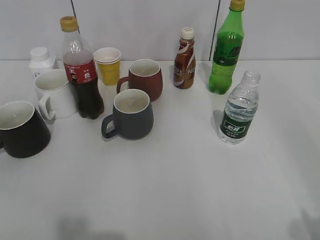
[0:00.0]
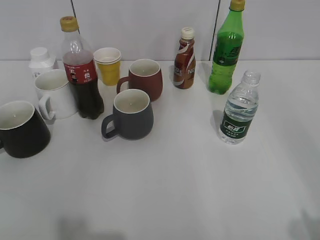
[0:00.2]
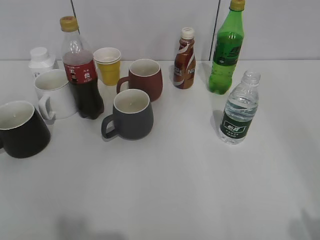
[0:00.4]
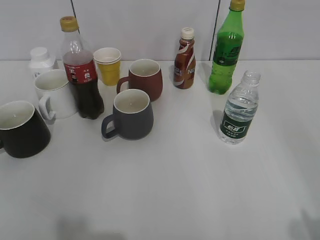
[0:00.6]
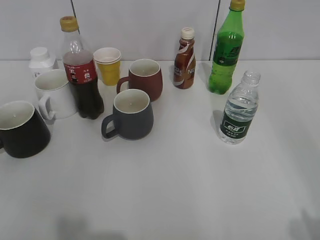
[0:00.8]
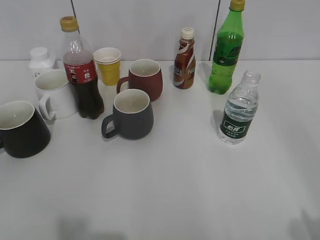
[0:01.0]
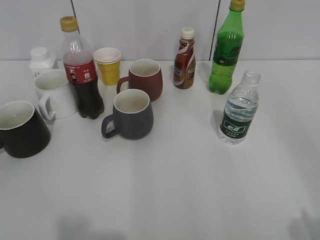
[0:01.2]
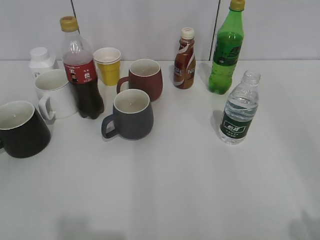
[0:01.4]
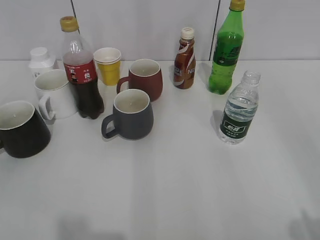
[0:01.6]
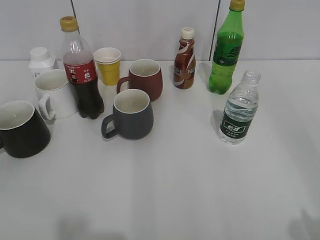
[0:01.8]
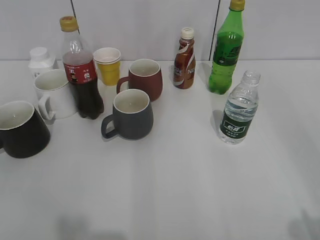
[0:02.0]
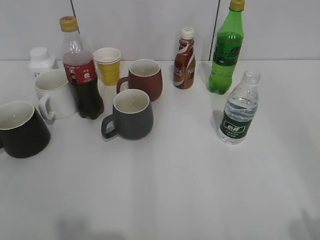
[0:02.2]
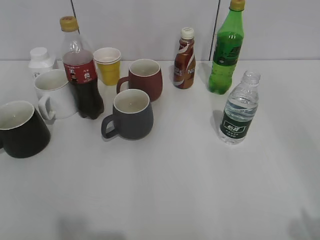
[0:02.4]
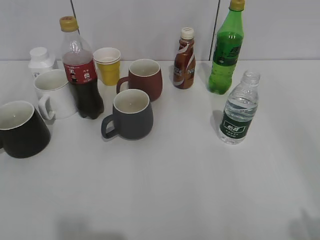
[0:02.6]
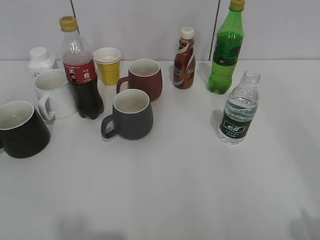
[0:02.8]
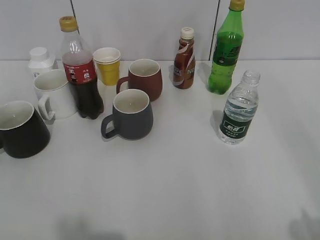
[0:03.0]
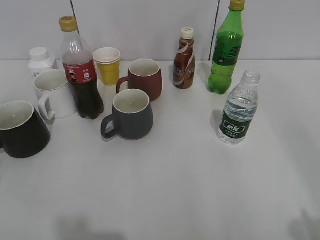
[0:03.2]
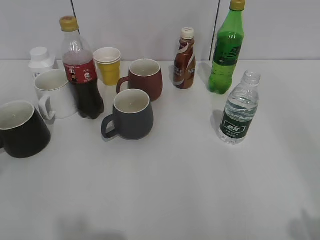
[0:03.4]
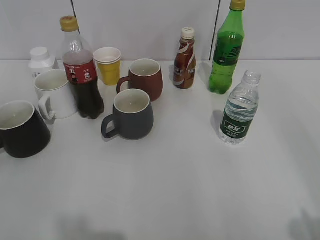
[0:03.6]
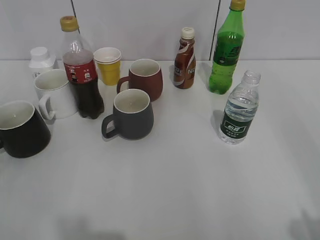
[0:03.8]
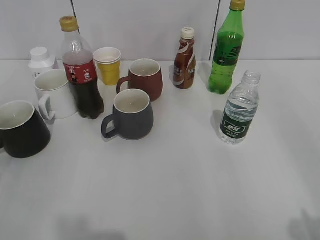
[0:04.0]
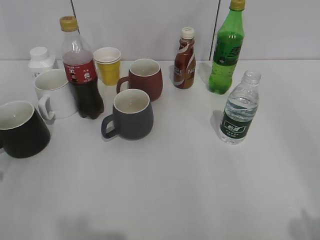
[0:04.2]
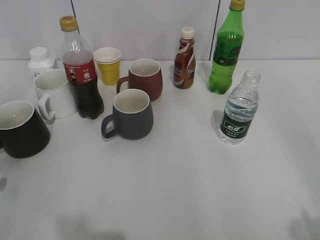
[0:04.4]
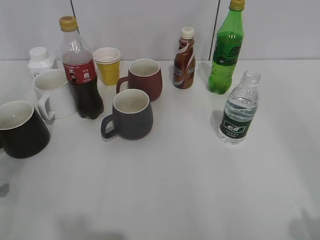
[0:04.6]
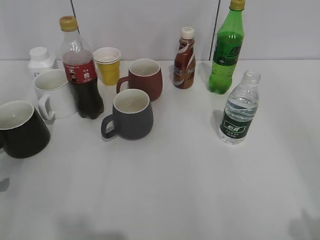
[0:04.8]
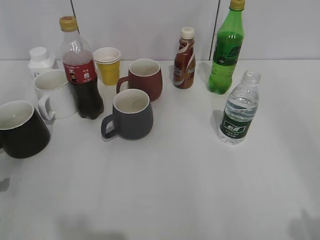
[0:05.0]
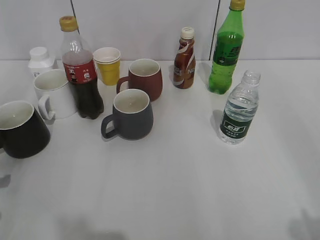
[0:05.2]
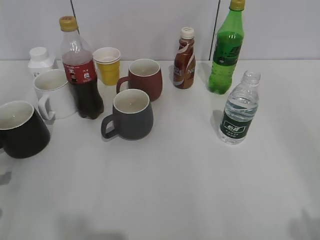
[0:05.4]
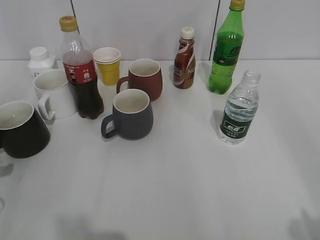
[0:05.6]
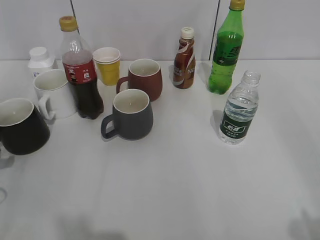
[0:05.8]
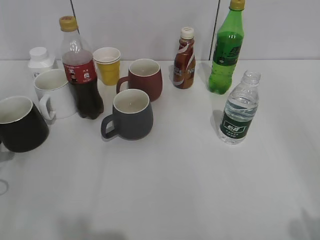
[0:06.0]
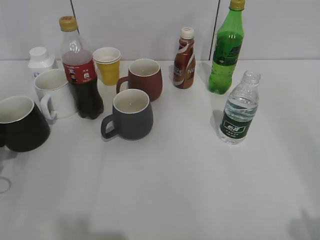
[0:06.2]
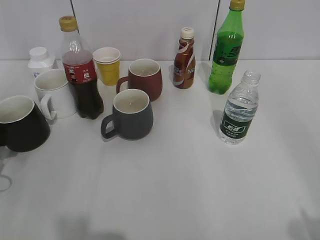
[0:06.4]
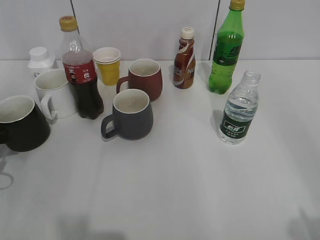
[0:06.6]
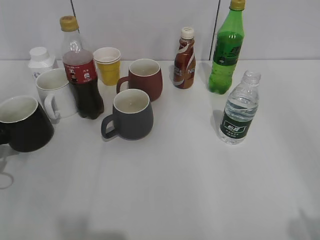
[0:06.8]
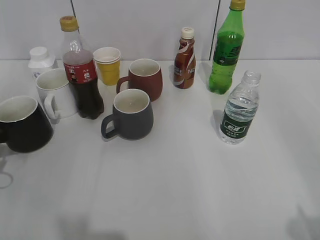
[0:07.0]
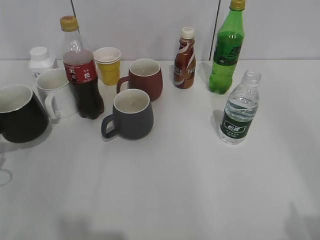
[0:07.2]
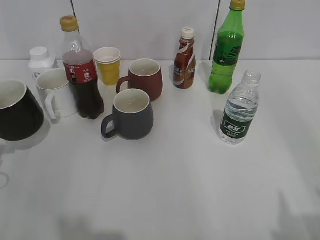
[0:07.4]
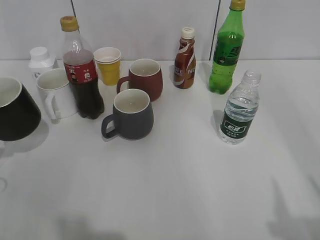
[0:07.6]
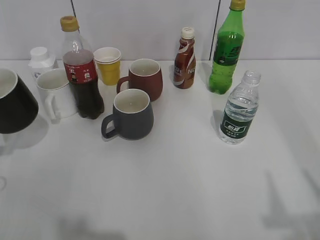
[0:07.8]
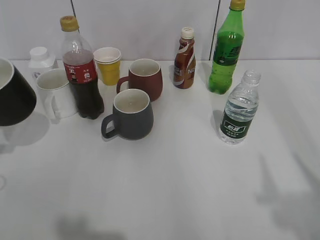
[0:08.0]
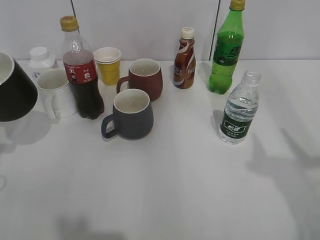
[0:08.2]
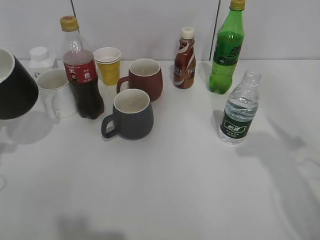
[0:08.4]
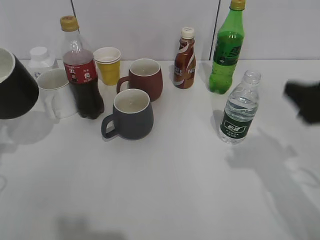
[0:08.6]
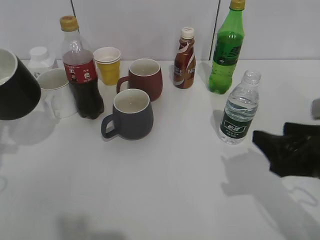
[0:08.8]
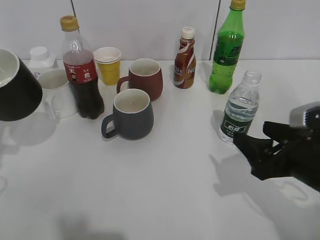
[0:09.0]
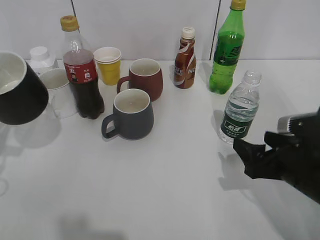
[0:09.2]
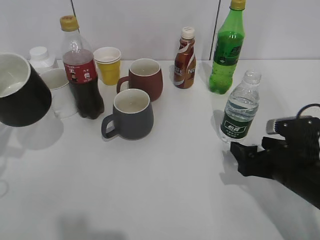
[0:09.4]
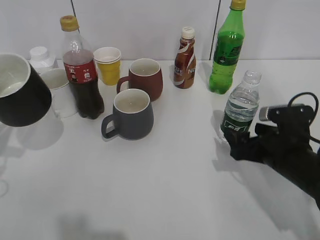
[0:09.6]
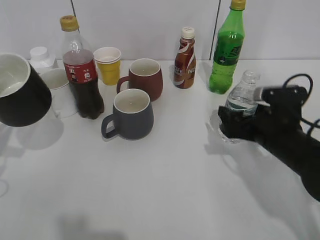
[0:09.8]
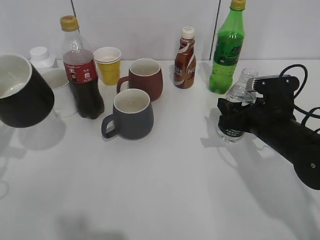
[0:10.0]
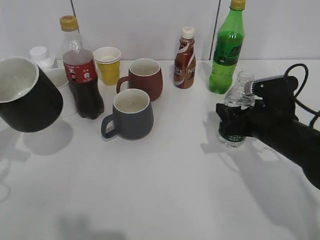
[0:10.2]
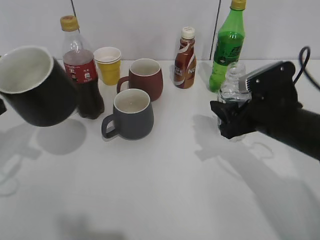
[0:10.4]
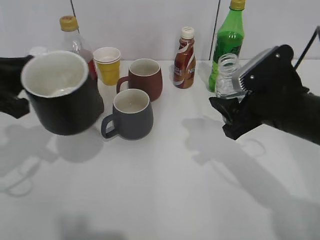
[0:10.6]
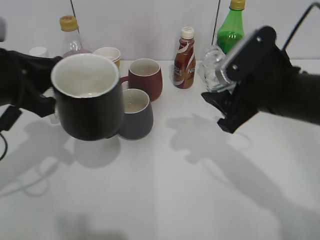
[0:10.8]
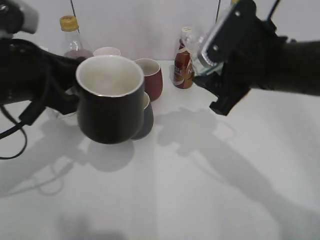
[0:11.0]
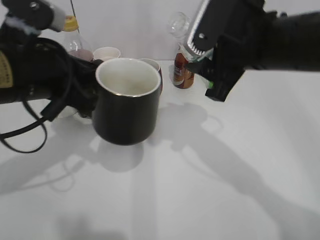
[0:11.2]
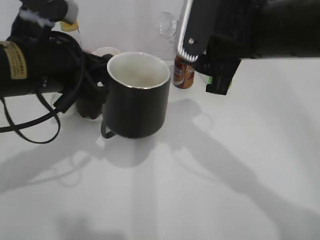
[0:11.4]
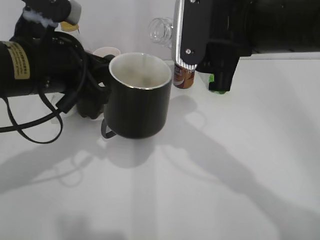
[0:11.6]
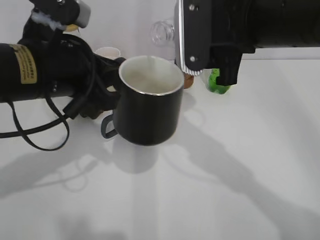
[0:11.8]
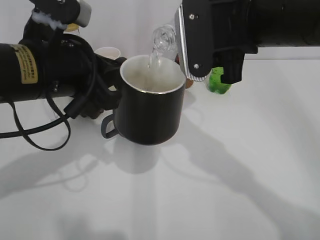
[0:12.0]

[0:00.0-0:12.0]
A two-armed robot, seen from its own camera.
Step, 0:07.0 to 0:08.4: Lift the black cup with left gripper.
Step, 0:08.6 to 0:09.8: Grasp the bottle with water with right gripper.
0:04.4 to 0:06.0: The left gripper is displaced forward by some 5 cm.
0:06.0 to 0:07.6: The left gripper closes.
0:07.6 to 0:09.0: The left gripper moves about 5 cm; the right gripper is displaced downward, forward and to the left by some 25 cm.
0:09.0 to 0:10.4: The right gripper heads forward, covering approximately 10 cm, and closes its fingers.
0:10.4 to 0:12.0: The left gripper moves to the right, roughly 15 cm. Meanwhile the right gripper moves upward and to the left, approximately 20 cm.

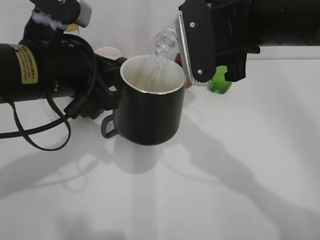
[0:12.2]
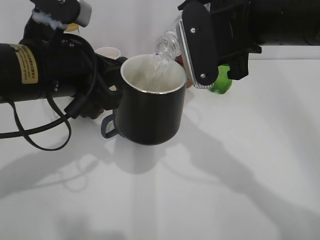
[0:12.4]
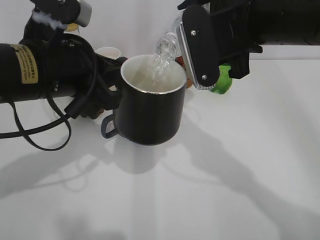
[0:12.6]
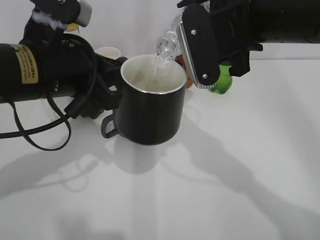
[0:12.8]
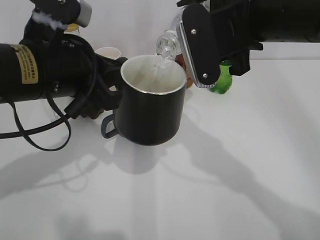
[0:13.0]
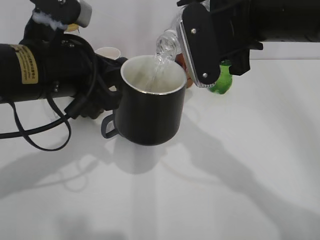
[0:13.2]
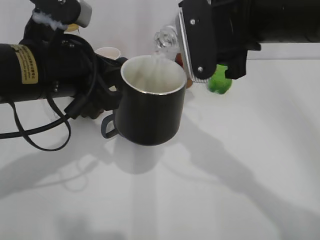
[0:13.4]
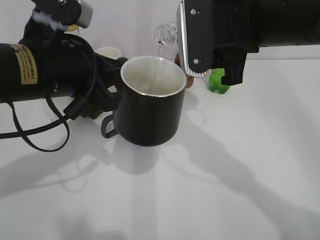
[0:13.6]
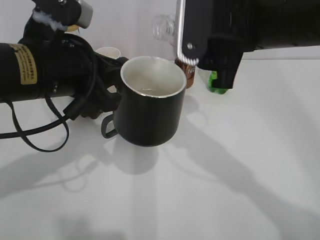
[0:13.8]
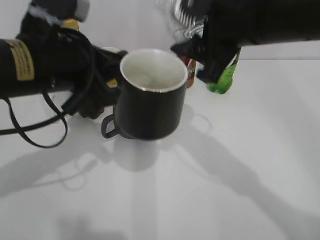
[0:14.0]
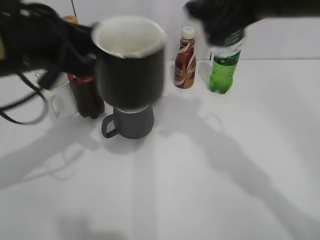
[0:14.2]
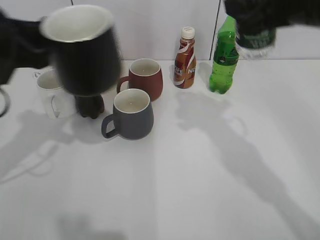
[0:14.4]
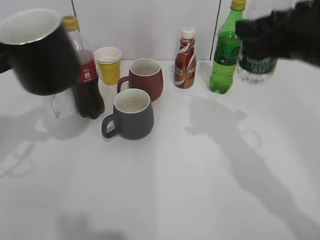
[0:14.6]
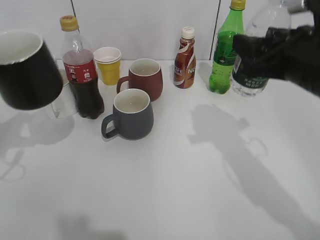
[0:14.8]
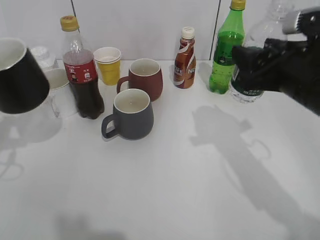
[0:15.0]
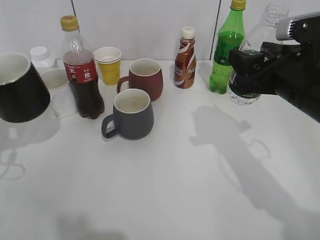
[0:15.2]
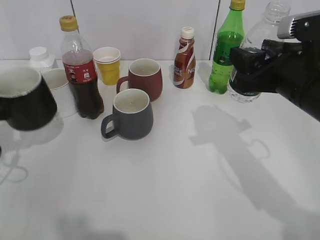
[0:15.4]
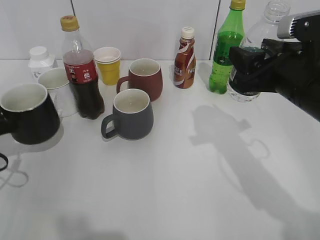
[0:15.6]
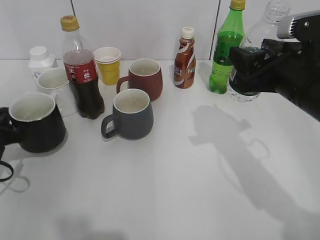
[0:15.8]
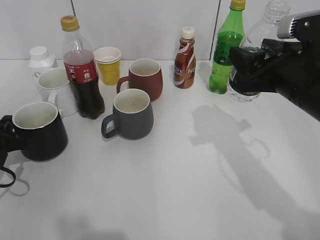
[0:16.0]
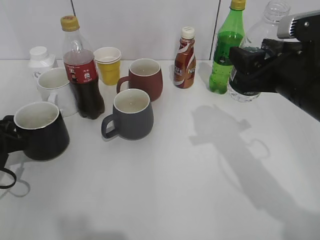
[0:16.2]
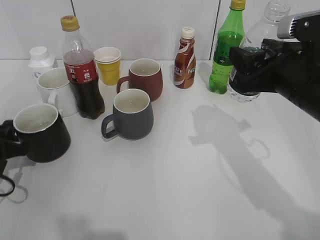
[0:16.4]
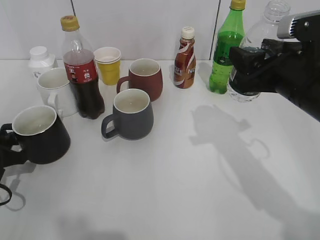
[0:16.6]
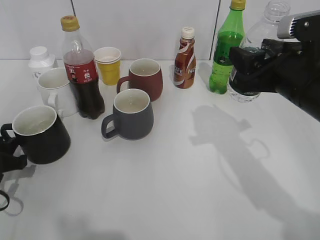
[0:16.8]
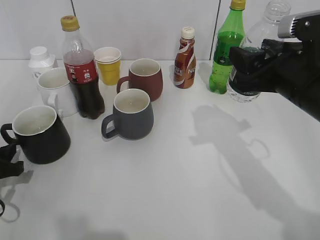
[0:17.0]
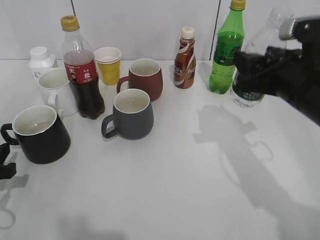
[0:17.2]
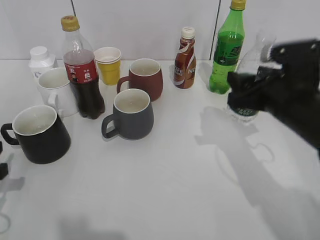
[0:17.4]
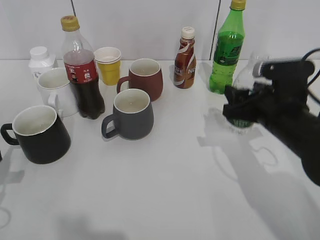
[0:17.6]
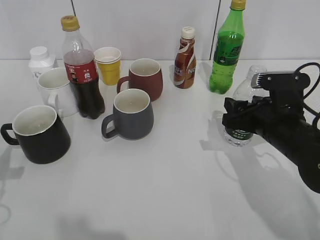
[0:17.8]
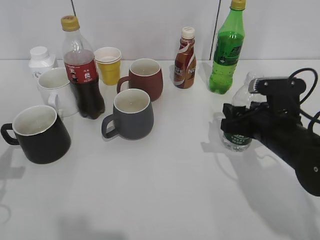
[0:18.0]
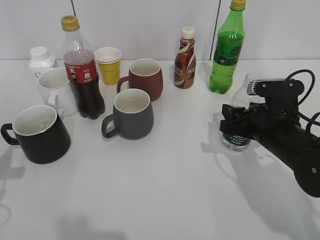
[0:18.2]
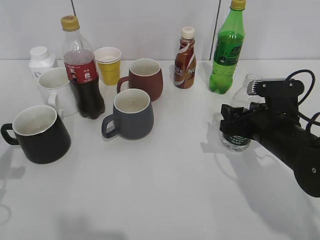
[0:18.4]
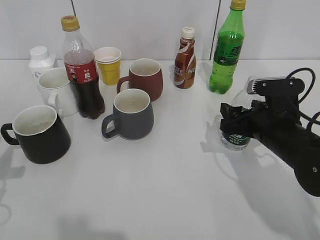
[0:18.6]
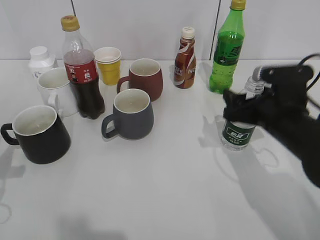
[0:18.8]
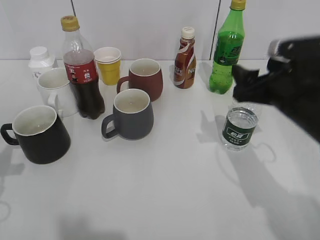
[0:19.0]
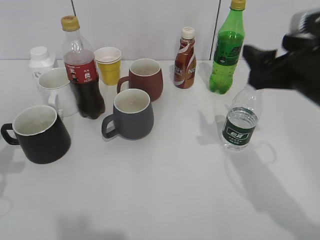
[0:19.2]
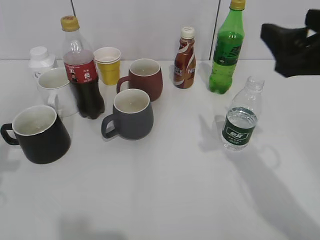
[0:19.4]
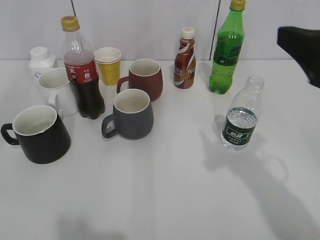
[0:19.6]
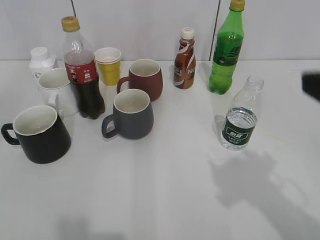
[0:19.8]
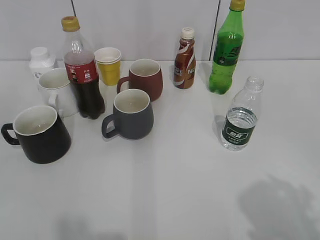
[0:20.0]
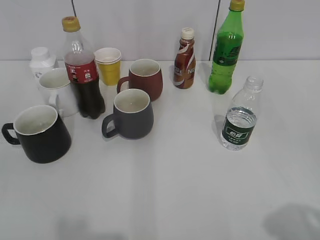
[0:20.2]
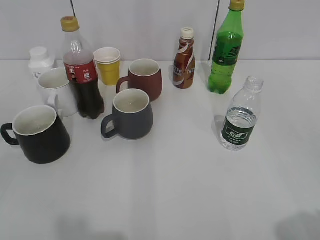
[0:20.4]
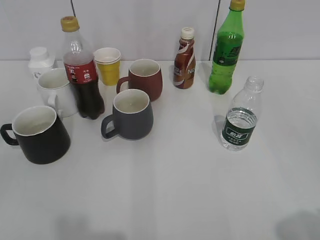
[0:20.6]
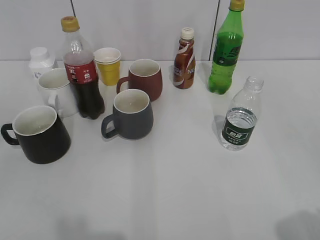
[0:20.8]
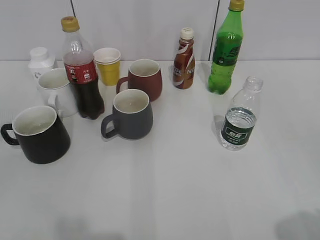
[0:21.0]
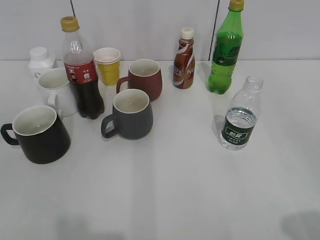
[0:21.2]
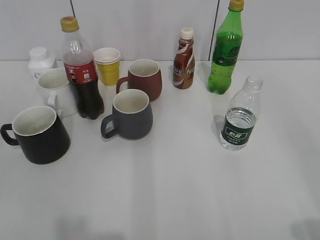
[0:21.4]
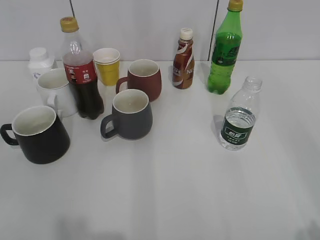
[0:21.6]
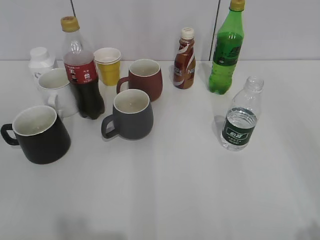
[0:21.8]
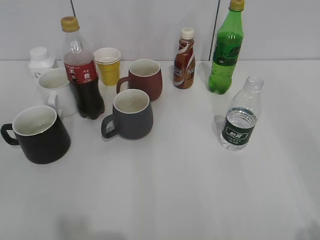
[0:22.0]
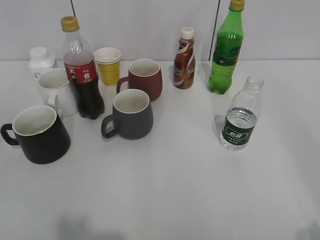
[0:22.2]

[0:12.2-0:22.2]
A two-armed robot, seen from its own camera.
Step, 0:14.0 to 0:16.8: Place the black cup on the table with left gripper.
Step, 0:17.0 to 0:18.8: Place the water bottle on the table with right gripper.
0:12.2 to 0:13.6: The grippers move only a little.
0:13.6 to 0:15.0: The left gripper is displaced to the left by some 15 cm. Meanwhile the right gripper moves to the right and downward, approximately 10 cm.
0:15.0 to 0:16.4: The left gripper goes roughly 15 cm downward.
0:16.4 to 0:18.0: The left gripper is displaced upward and backward by some 10 cm, and opens, while the right gripper is displaced downward by some 10 cm.
0:18.0 to 0:19.4: The right gripper travels upward by approximately 15 cm, and opens.
0:19.4 to 0:20.8: The right gripper travels backward and to the right by about 20 cm.
0:20.8 to 0:22.2: Both grippers stay put.
